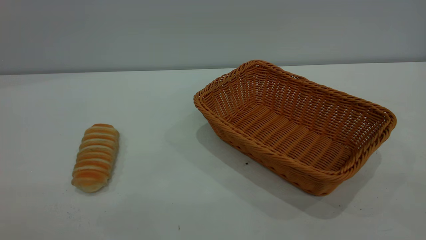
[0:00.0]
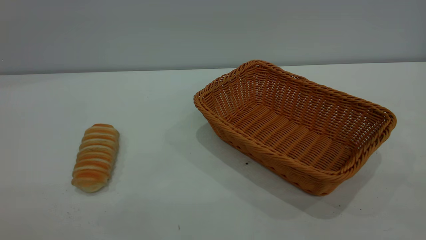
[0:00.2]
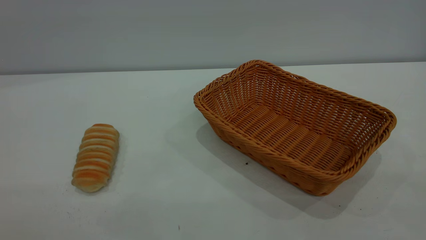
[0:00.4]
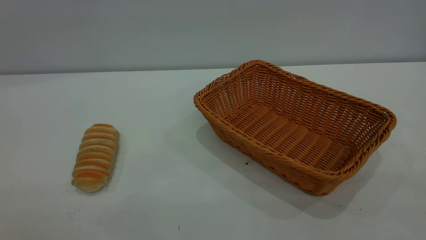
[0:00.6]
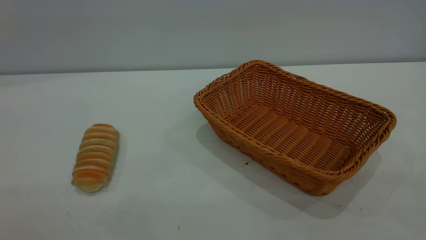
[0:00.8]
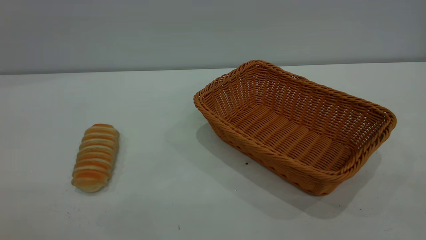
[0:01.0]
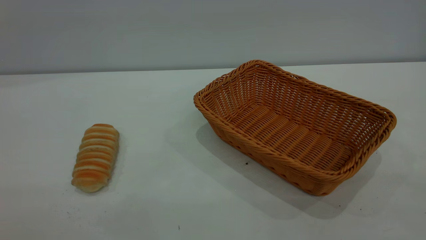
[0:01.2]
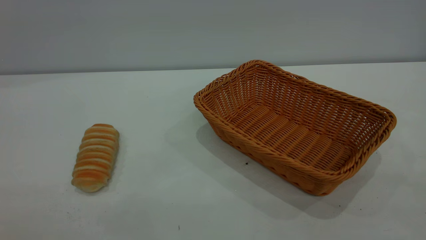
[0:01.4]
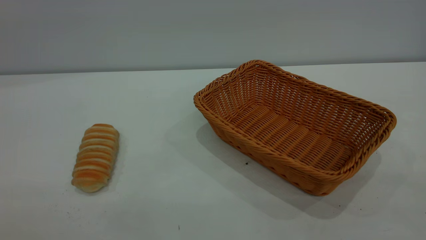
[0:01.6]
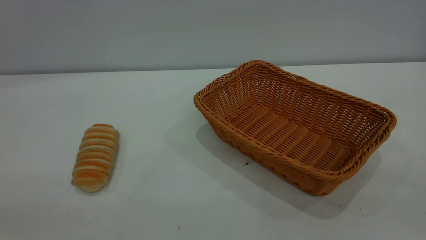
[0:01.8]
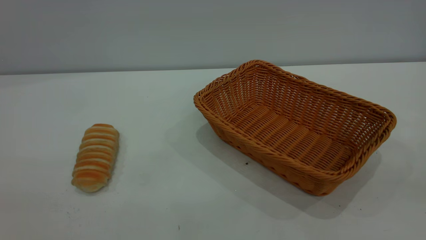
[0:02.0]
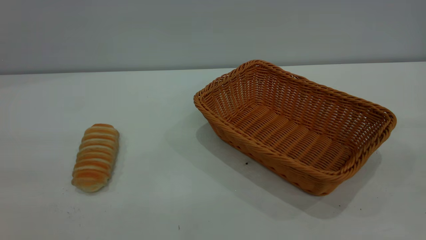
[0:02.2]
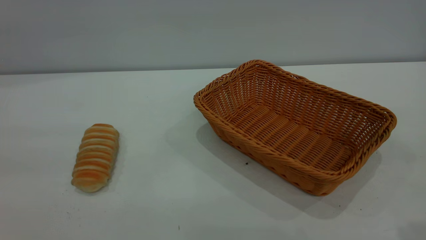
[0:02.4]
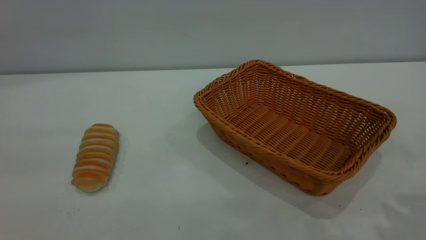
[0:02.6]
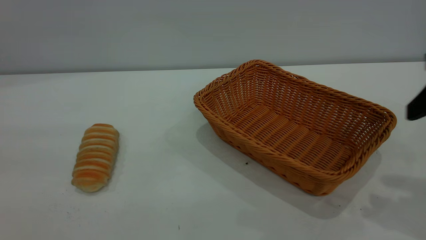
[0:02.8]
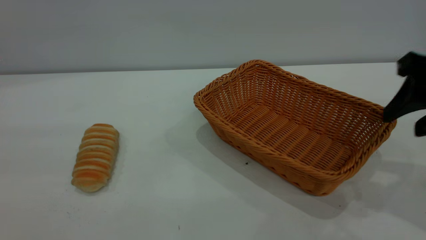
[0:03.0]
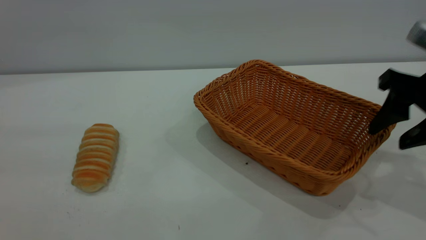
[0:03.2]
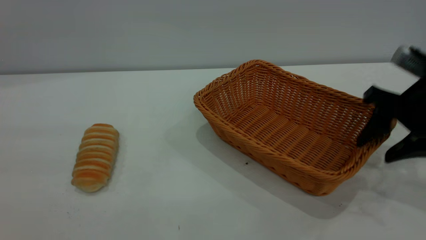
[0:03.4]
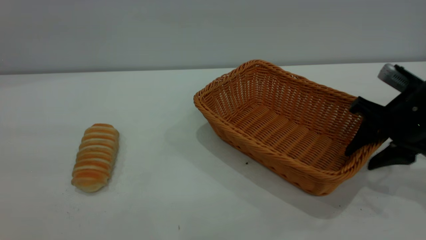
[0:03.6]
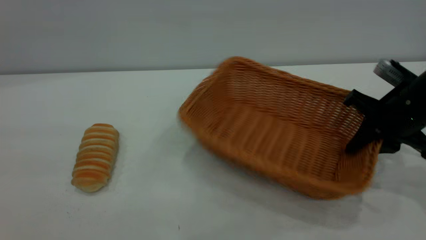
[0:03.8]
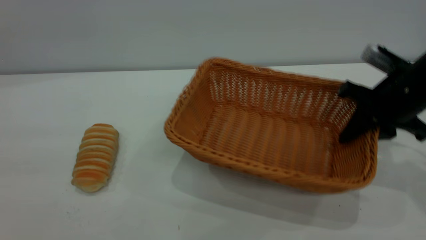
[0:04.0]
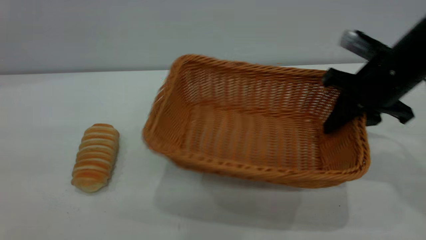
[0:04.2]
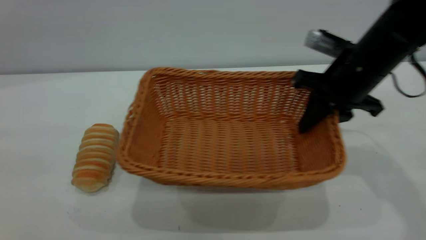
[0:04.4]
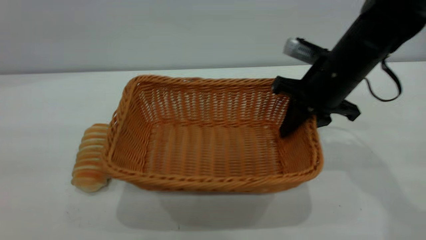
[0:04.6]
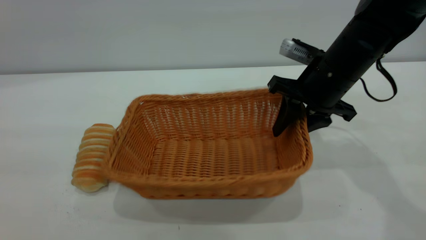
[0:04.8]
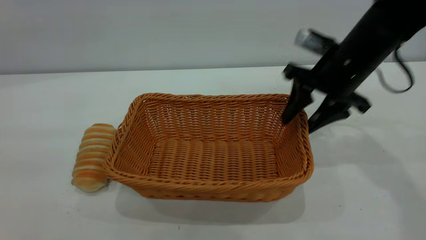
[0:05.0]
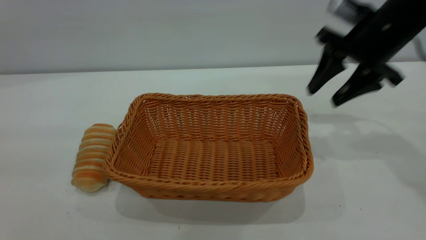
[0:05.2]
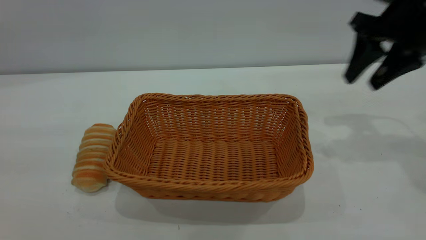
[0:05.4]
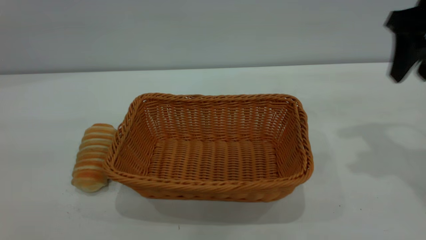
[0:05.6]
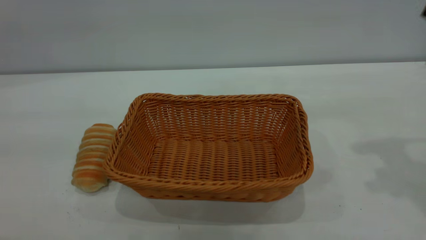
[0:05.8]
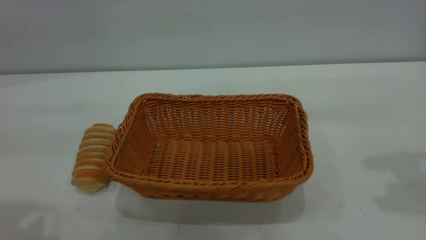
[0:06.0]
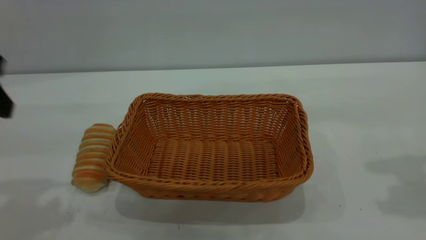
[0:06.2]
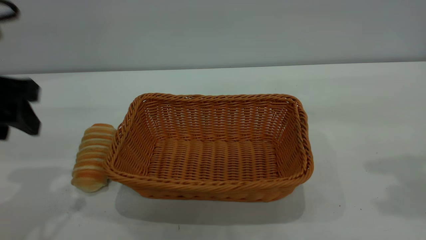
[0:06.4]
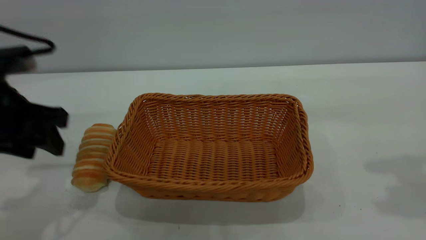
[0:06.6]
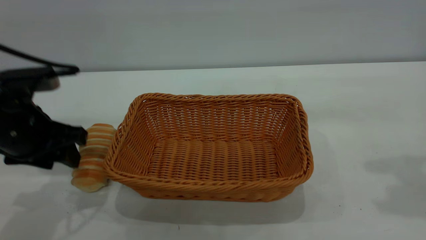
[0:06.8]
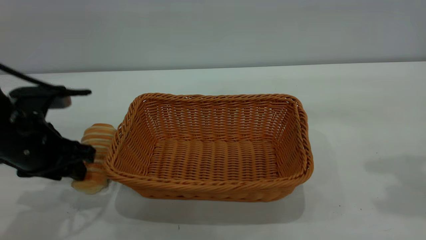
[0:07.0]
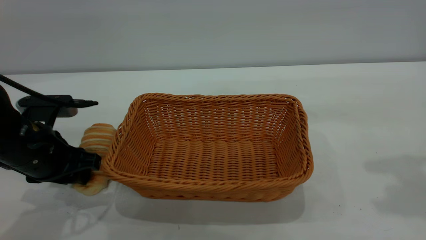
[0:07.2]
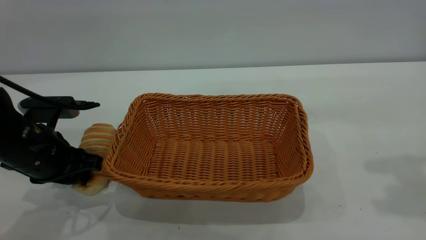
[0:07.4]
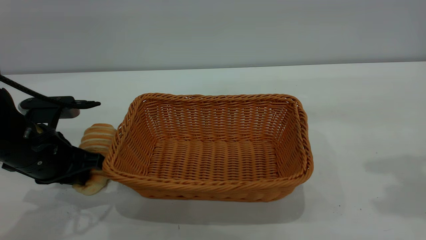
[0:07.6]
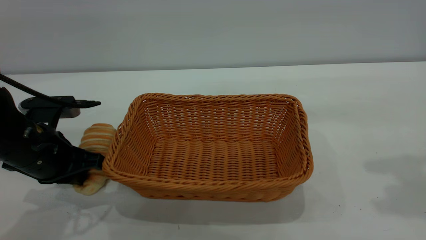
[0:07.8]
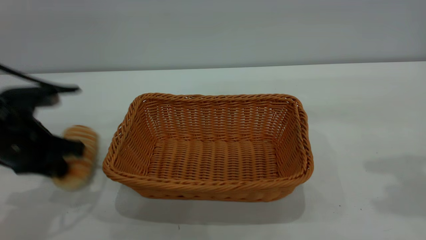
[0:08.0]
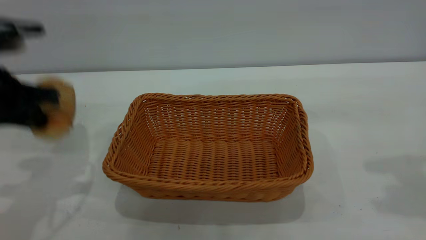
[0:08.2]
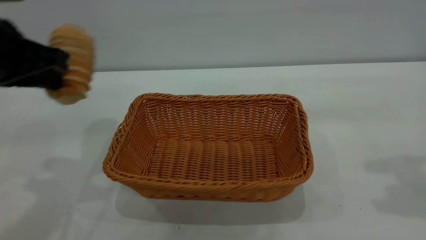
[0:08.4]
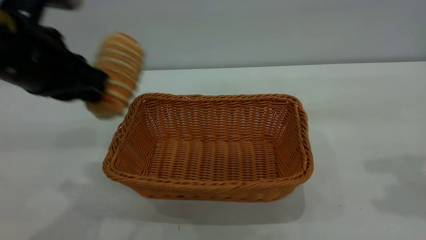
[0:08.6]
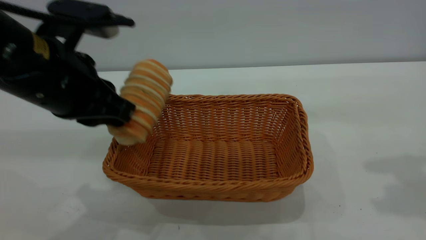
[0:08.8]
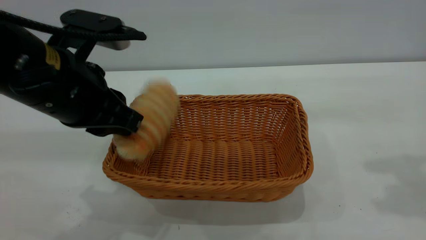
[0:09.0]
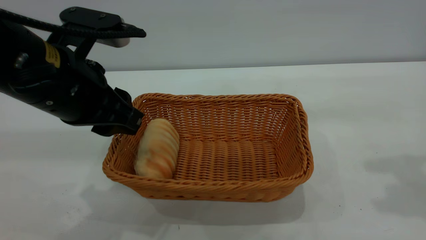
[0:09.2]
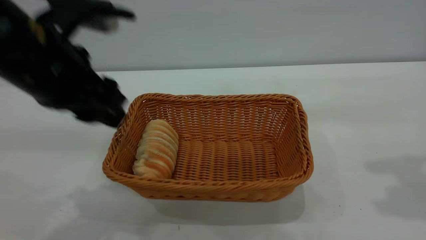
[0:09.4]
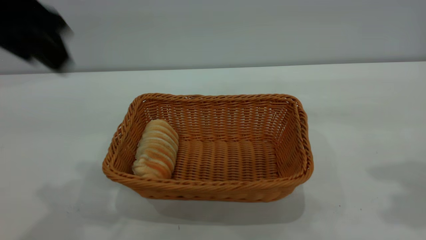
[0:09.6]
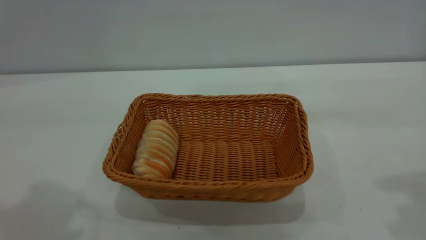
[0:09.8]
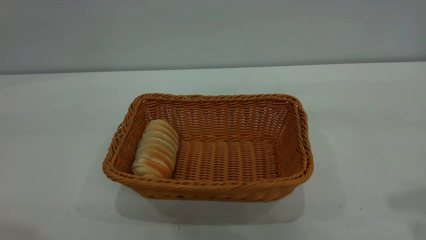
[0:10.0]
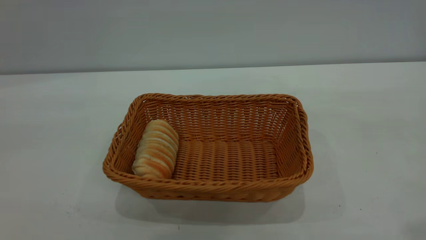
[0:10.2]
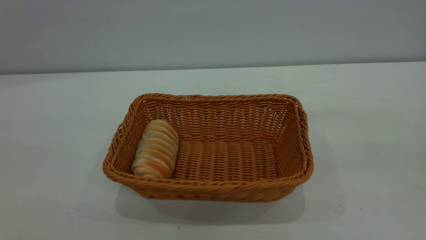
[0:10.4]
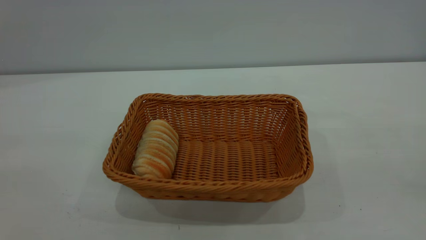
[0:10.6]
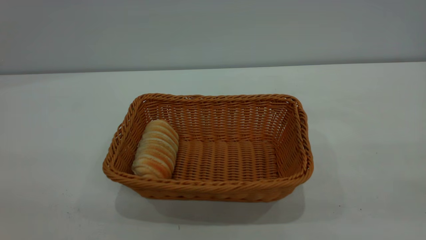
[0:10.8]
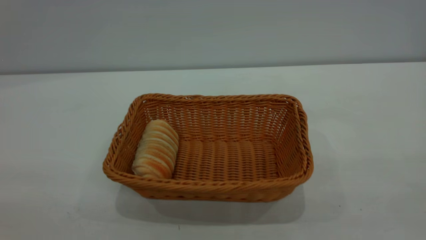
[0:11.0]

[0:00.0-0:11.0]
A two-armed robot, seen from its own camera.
Task of the whole recording: One hand grasps the yellow basket and places it in the middle of the table, while the other hand picks up the long bread and puts it into the yellow basket.
Step, 0:00.0 to 0:05.0: Move the basket to the center of view.
Step, 0:08.2 to 0:09.4: place the bread into the basket.
0:01.6 to 0:03.2: The right gripper goes roughly 35 cm forward and downward.
0:03.2 to 0:04.8: The right gripper moves to the left and forward, about 15 cm, and closes.
0:04.8 to 0:06.2: The right gripper goes approximately 25 cm upward, backward and to the right; the left gripper shifts roughly 25 cm forward and downward.
0:06.2 to 0:07.8: The left gripper heads downward, covering about 15 cm, and closes.
0:07.8 to 0:09.4: The left gripper goes approximately 15 cm upward and to the right, and opens its fingers.
0:09.4 to 0:11.0: The right gripper is displaced backward by some 25 cm; the left gripper is displaced backward and to the left by approximately 30 cm.

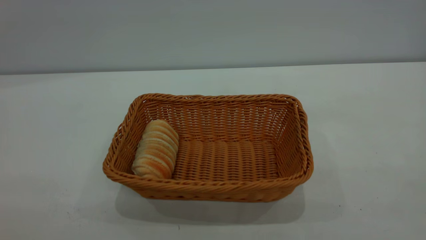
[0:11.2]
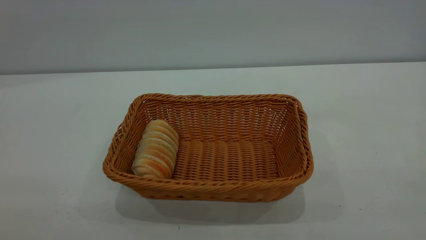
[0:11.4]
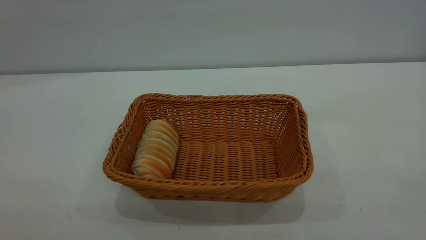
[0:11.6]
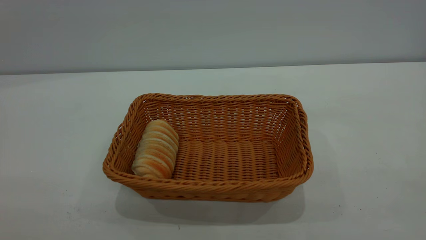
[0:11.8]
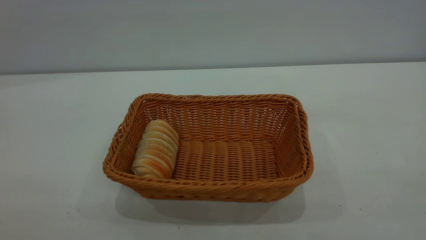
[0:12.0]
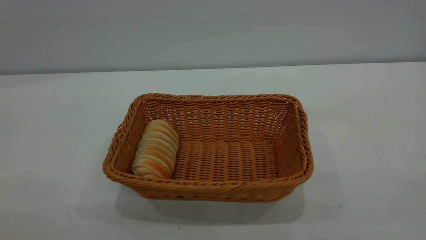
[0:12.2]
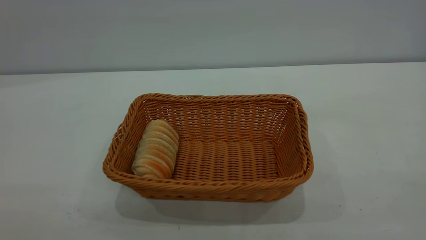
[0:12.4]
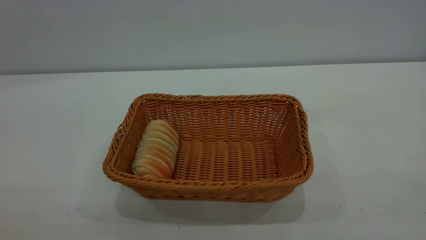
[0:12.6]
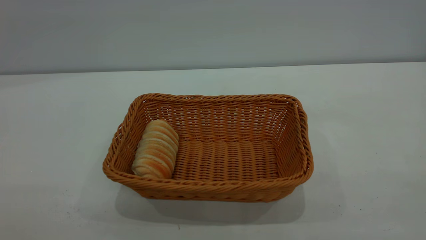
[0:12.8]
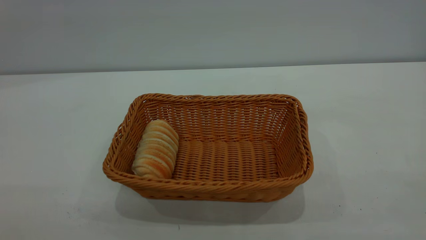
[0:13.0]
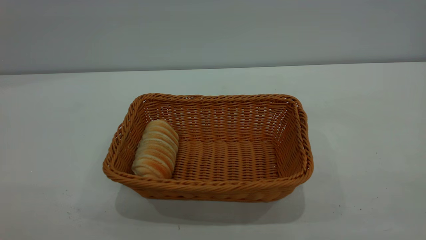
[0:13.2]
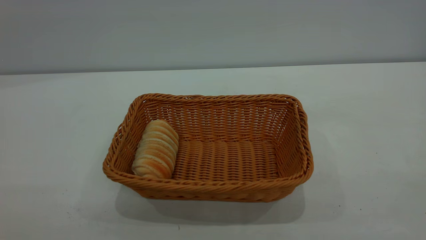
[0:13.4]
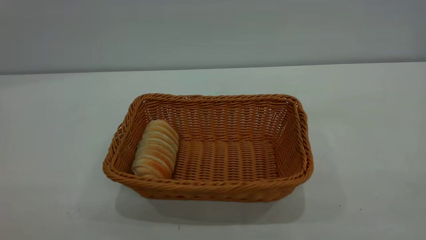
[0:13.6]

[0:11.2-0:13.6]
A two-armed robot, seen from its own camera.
Task of the whole recording: One hand grasps the yellow basket and places it in the middle of the table, while the other hand picks up the long bread and puts it into the yellow basket.
0:12.4 to 0:13.6: The two grippers keep their place.
